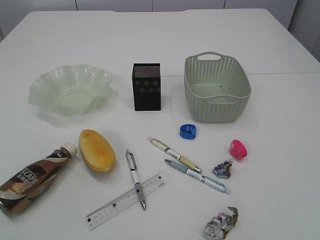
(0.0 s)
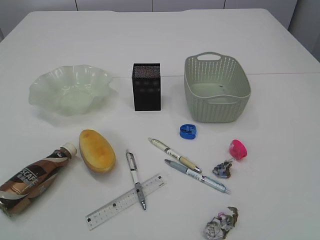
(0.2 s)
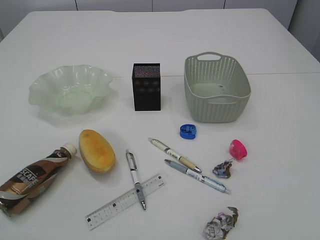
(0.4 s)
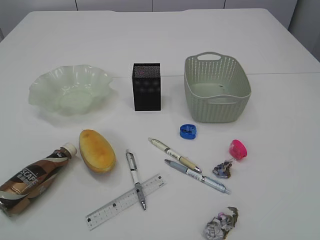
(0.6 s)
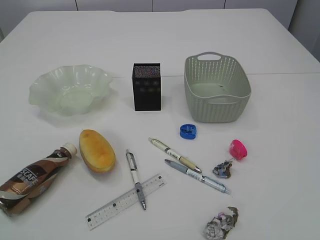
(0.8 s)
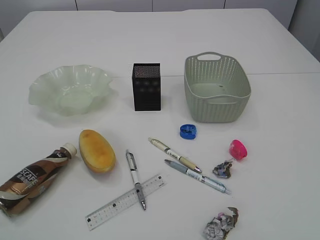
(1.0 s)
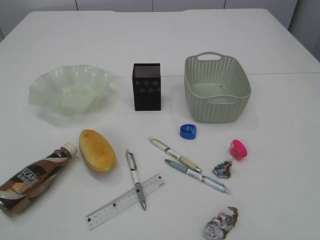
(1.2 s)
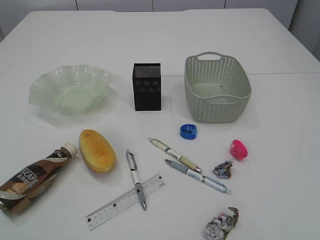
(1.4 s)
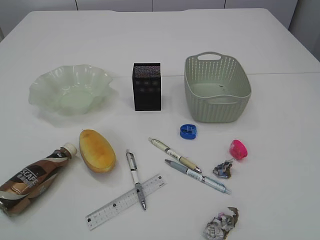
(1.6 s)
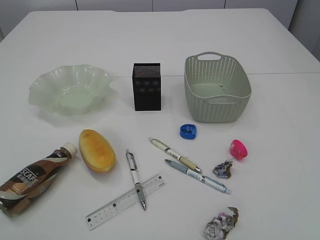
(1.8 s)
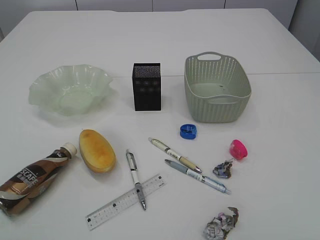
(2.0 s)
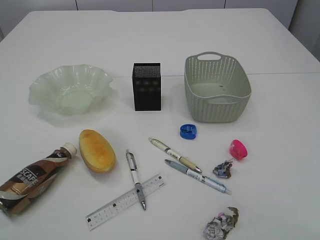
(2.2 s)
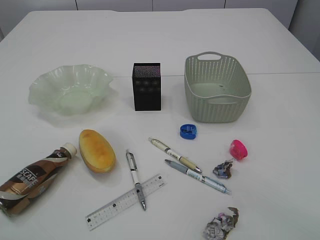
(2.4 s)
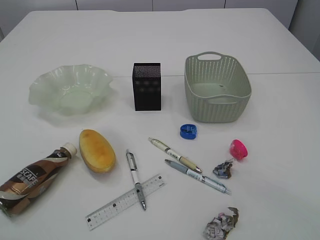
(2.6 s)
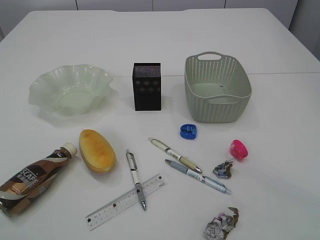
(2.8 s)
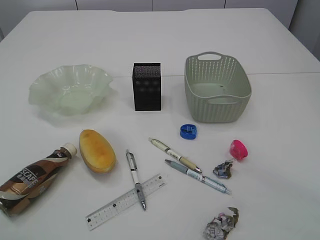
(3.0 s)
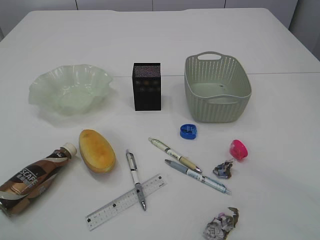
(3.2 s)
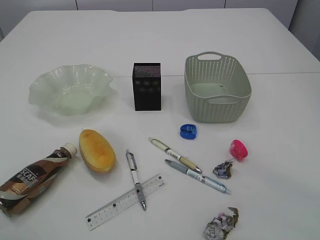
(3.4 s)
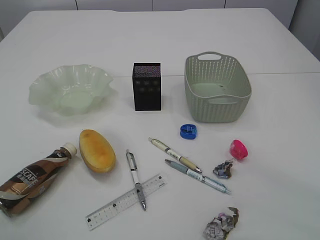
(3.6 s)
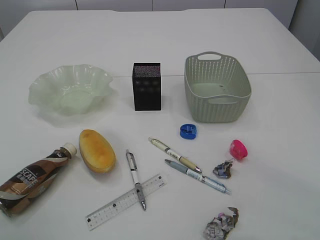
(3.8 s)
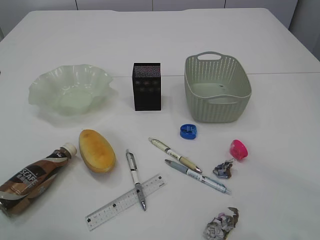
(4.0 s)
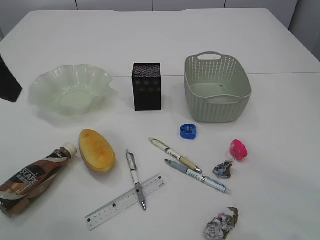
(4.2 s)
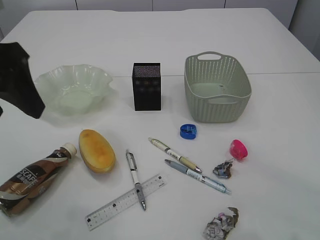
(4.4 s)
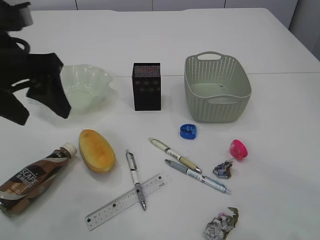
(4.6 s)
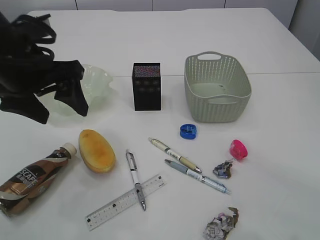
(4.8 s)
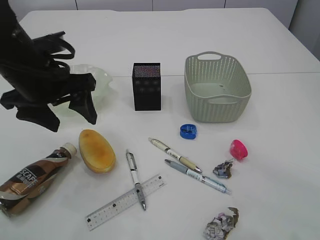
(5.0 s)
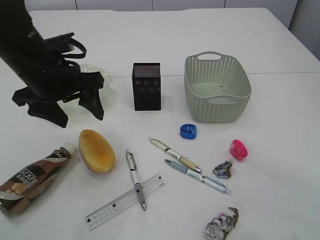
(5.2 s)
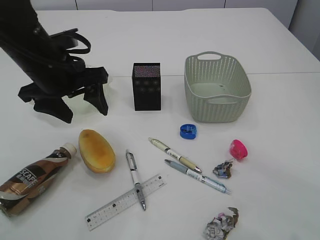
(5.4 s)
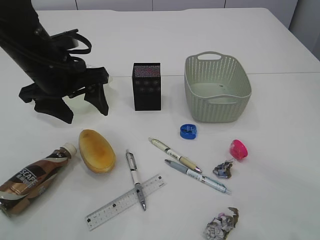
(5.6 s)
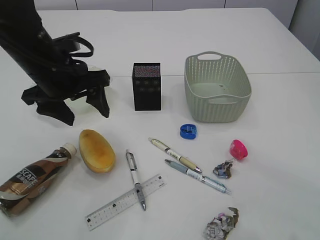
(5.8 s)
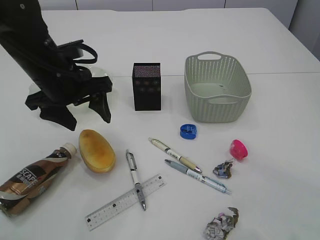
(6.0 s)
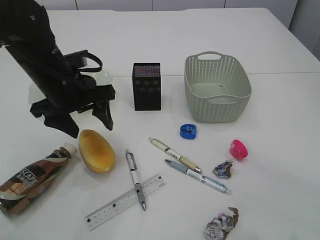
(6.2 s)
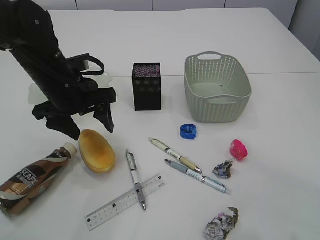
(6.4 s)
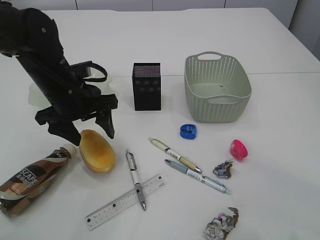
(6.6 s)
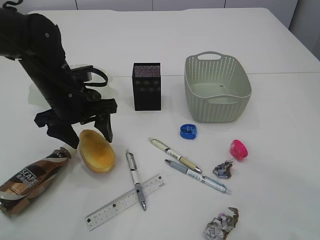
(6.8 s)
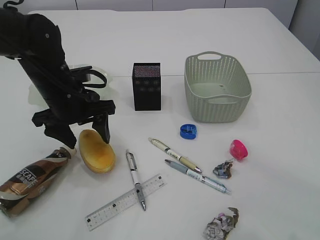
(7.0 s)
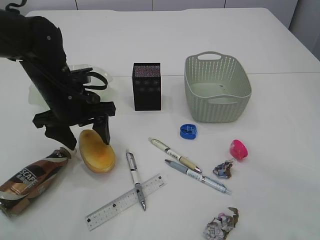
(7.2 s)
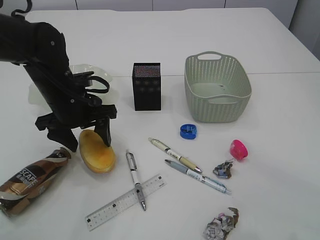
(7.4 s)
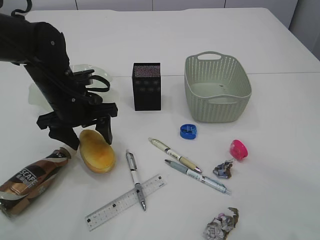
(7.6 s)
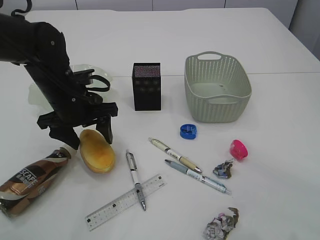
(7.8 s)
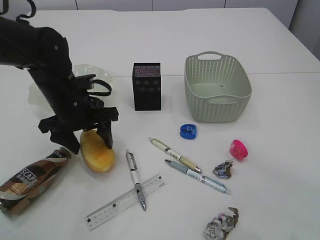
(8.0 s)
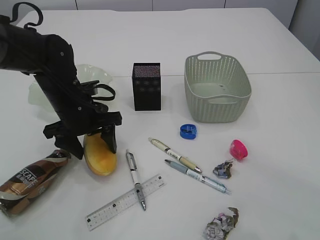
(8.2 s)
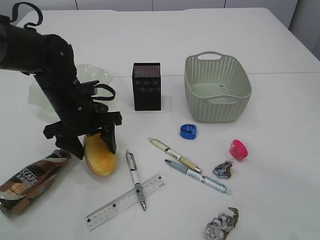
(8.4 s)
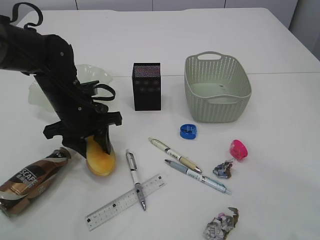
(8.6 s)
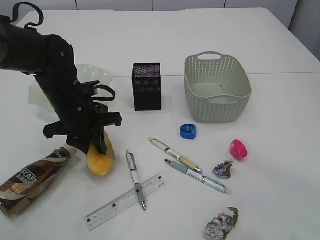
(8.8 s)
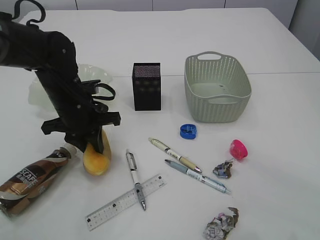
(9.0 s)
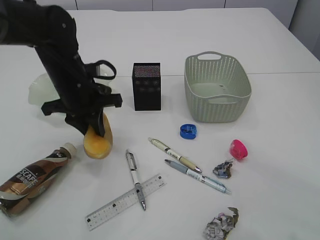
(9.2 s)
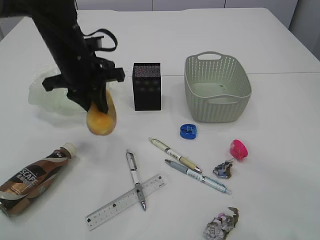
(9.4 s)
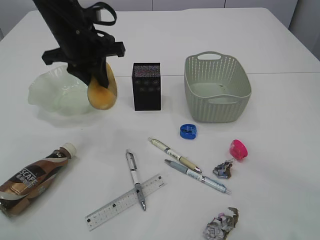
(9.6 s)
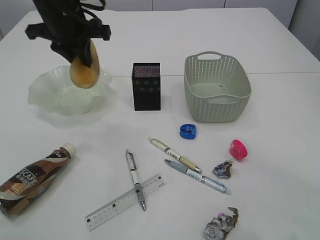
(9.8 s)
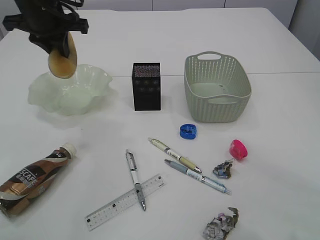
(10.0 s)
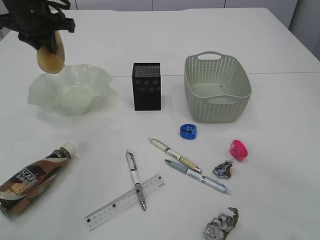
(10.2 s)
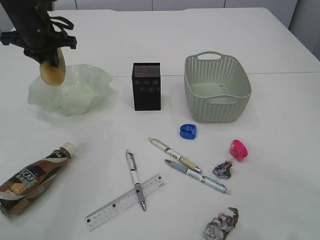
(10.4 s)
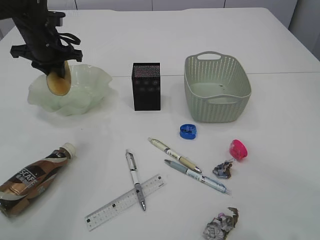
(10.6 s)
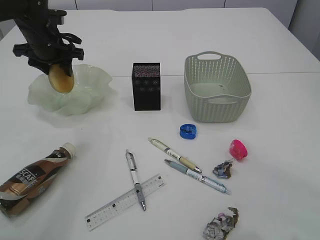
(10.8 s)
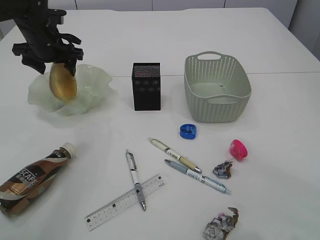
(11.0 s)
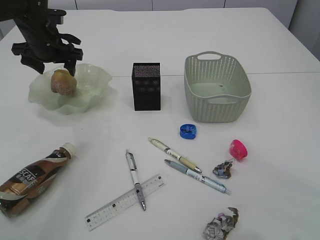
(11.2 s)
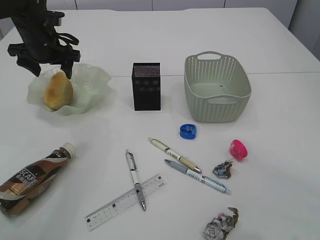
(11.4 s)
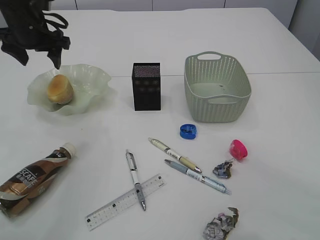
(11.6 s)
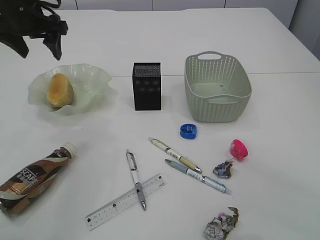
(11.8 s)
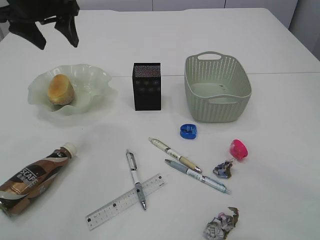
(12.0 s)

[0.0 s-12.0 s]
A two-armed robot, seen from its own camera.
Step, 9.6 to 11.8 s: place the bread in the plate.
3.0 to 4.4 s: The left gripper heads forward, downward and to the right, covering some 15 cm.
4.4 to 6.0 s: The left gripper is displaced downward, forward and to the right by approximately 15 cm.
6.0 to 7.6 s: The left gripper travels downward by roughly 5 cm.
7.6 to 9.0 s: The left gripper closes its fingers.
9.0 to 10.4 s: The left gripper heads forward, upward and to the left, covering approximately 20 cm.
10.4 to 12.0 s: The left gripper heads upward, covering approximately 5 cm, and opens its fingers.

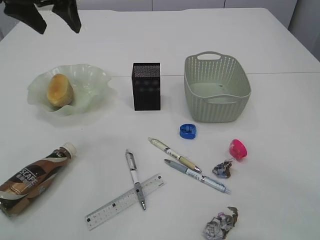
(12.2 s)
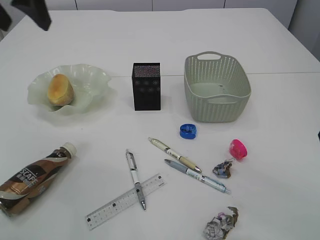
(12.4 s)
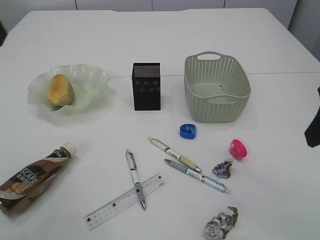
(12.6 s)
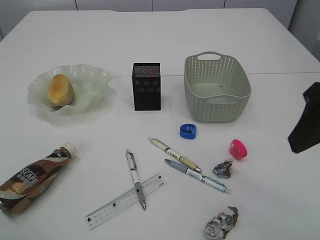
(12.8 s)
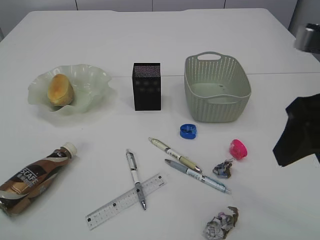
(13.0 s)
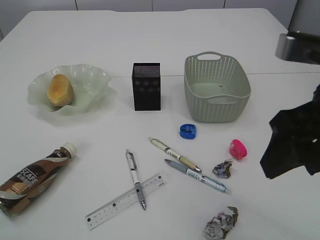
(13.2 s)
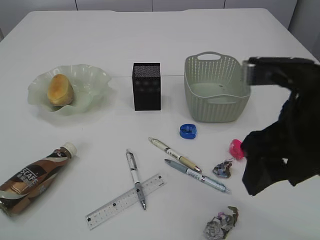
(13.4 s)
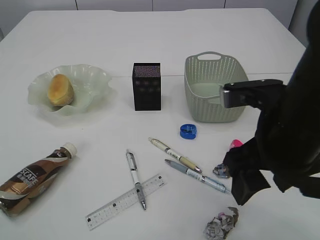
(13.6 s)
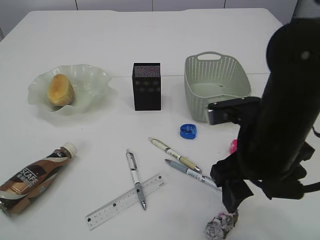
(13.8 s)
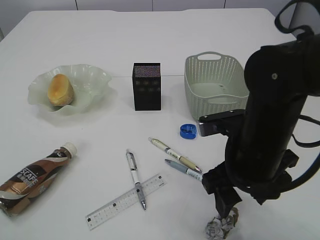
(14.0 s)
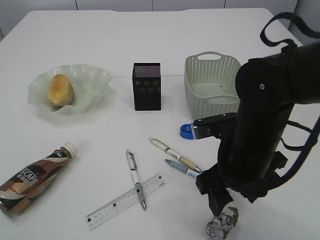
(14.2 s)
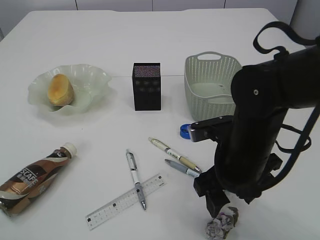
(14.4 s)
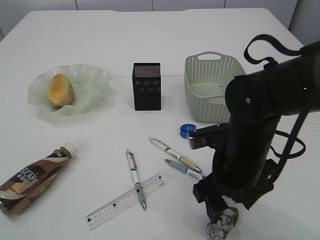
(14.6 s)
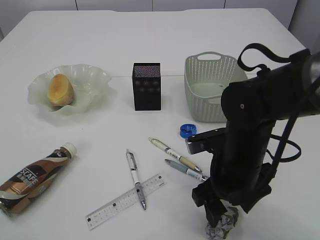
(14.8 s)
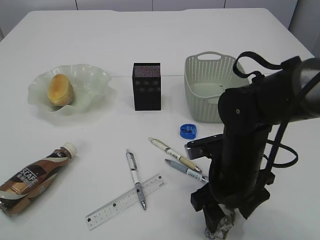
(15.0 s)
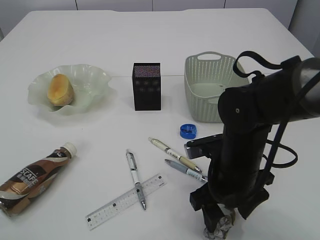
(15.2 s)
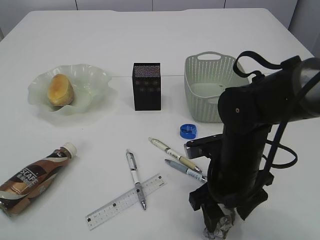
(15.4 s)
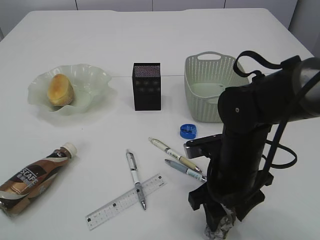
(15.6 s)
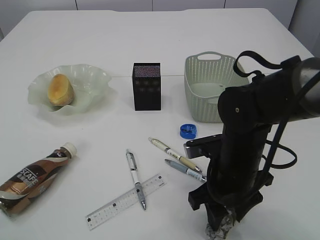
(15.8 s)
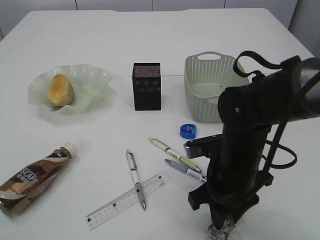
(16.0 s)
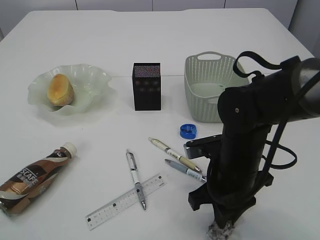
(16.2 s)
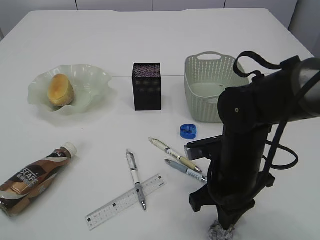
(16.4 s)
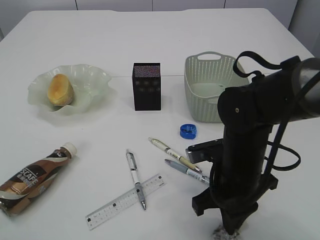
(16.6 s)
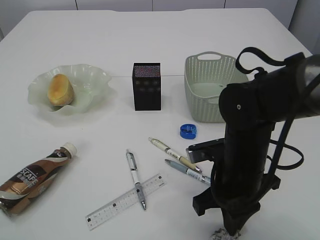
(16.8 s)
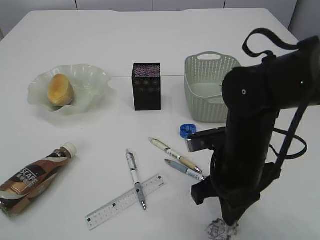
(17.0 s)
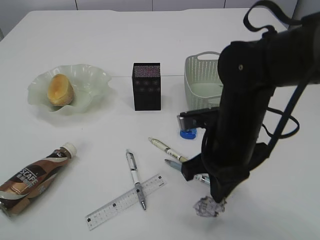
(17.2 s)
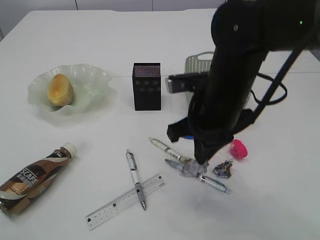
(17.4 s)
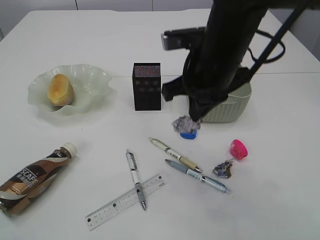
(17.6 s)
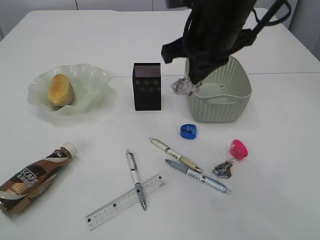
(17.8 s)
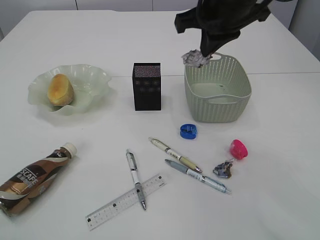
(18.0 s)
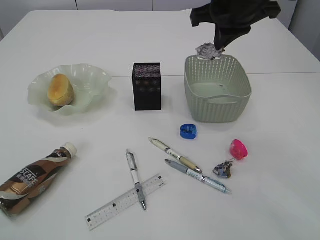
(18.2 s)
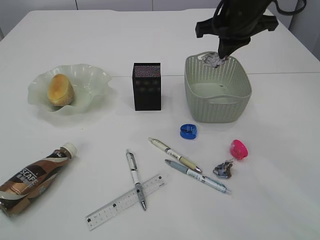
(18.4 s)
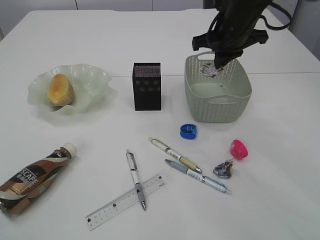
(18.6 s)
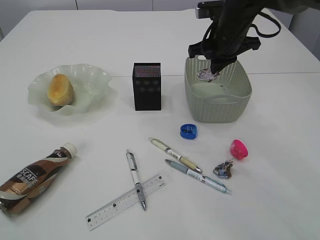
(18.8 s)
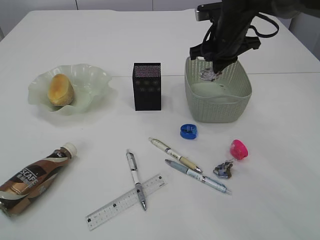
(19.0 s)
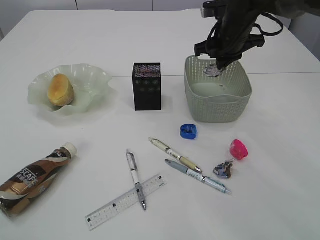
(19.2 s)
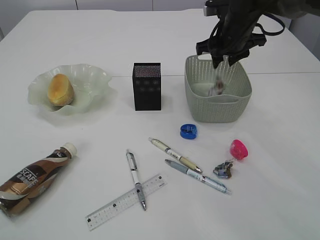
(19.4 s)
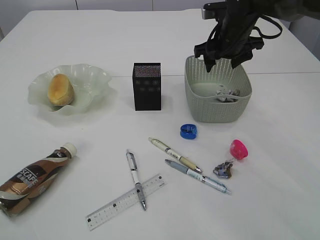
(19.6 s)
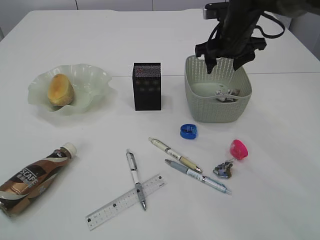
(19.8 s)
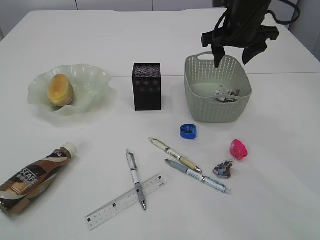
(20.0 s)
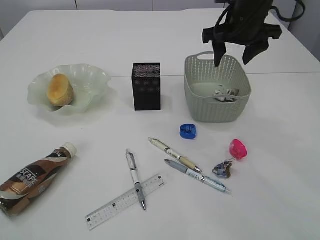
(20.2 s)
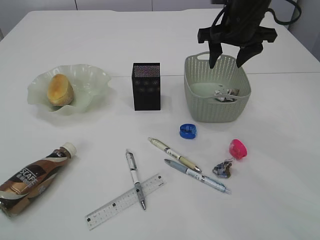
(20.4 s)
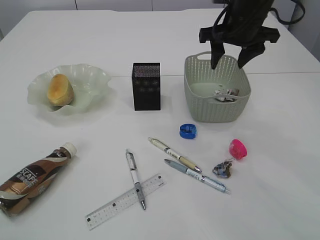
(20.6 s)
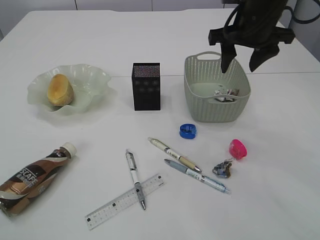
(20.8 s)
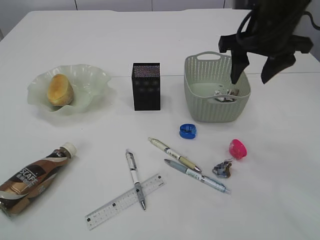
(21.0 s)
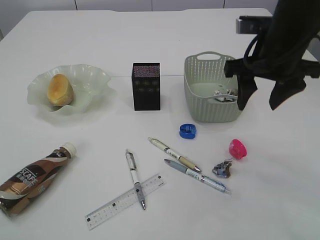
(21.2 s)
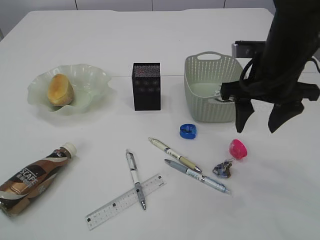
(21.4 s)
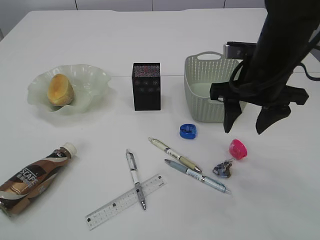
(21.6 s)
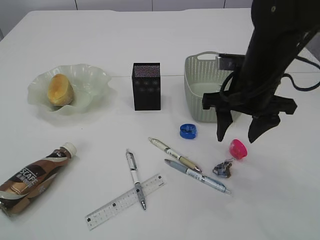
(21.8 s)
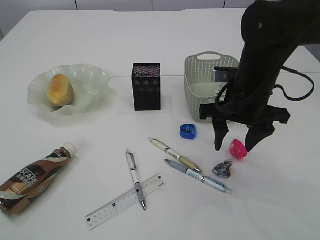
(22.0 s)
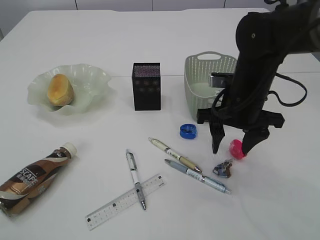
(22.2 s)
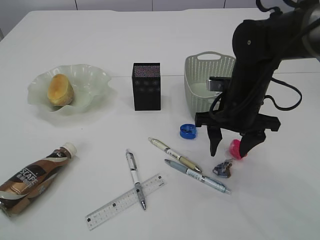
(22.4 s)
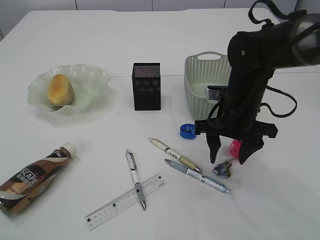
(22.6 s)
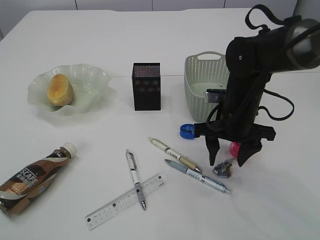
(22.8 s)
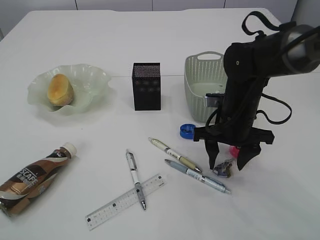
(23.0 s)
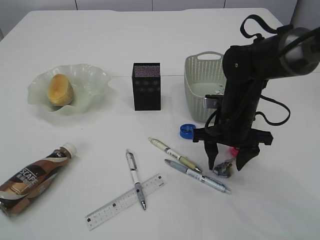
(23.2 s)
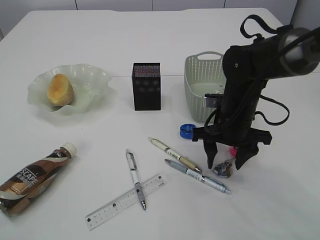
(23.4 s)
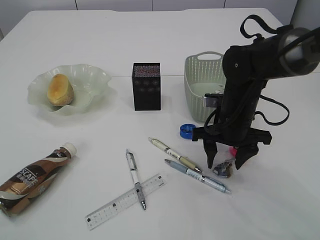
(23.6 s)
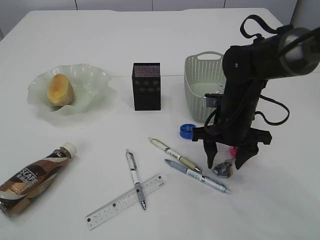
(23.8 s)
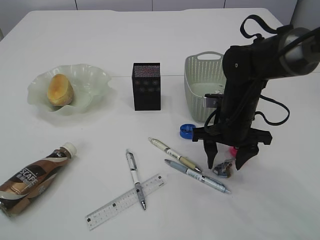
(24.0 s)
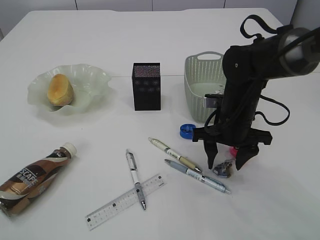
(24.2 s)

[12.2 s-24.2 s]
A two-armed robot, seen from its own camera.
Step, 12.2 to 17.4 s: Pick up the waste paper.
Step, 17.6 to 19.6 s: Place the waste paper in the basket.
12.2 to 13.8 s: The right gripper heads to the left and downward, covering roughly 15 cm. The left gripper goes some 30 cm backward.
13.8 to 15.2 s: The right gripper is displaced downward by some 10 cm.
15.2 to 16.6 s: The right gripper closes.
16.6 to 18.2 s: The right gripper moves upward and forward, about 25 cm.
18.2 to 19.8 s: The right gripper heads downward and forward, covering some 15 cm, and opens.
19.8 to 21.2 s: The right gripper shifts some 15 cm backward.
21.2 to 22.6 s: The right gripper moves downward, some 10 cm.
22.6 to 24.2 s: The grippers make only small movements.
